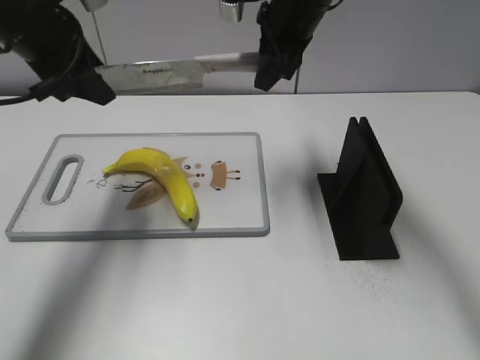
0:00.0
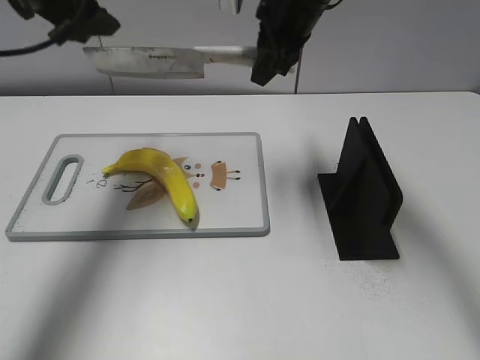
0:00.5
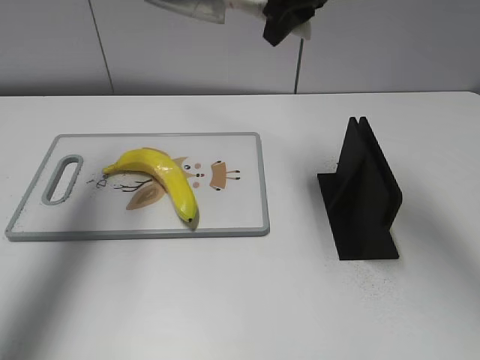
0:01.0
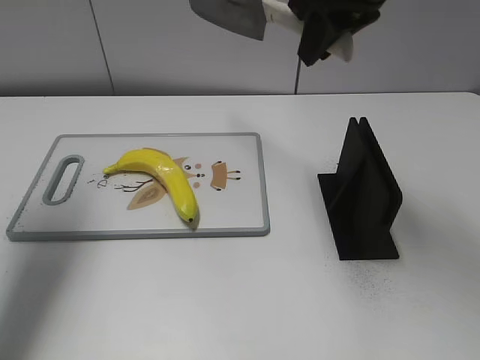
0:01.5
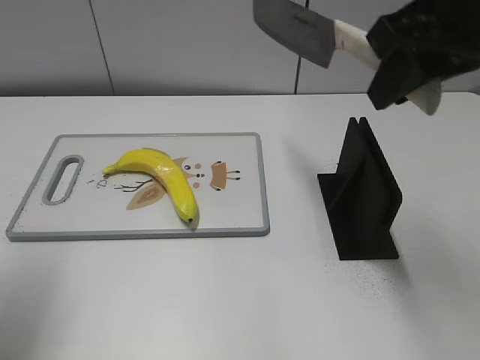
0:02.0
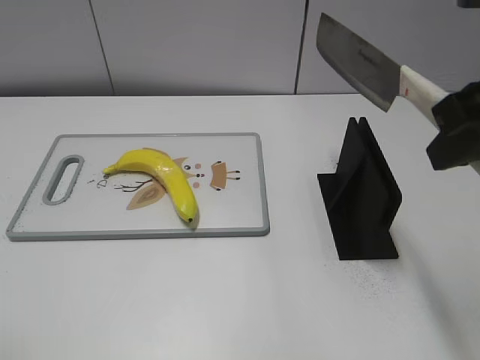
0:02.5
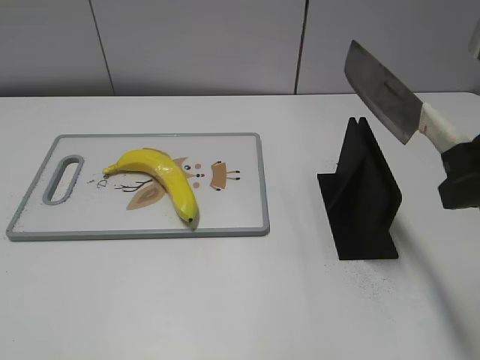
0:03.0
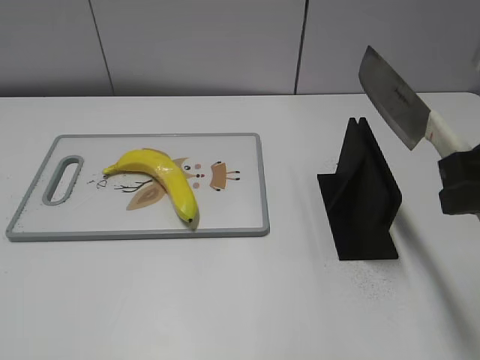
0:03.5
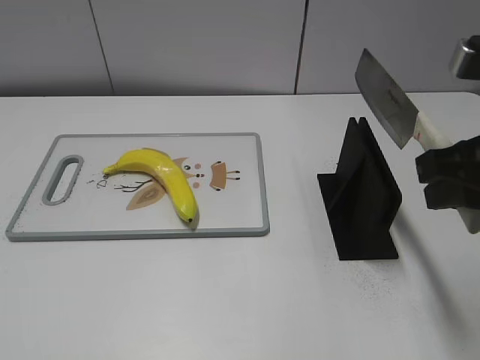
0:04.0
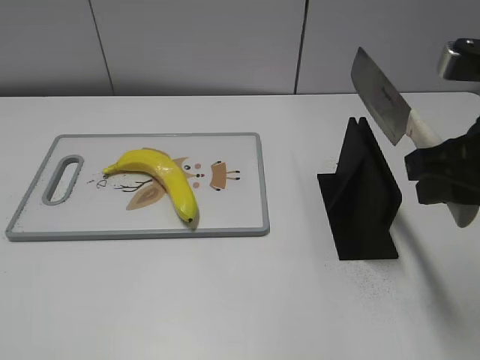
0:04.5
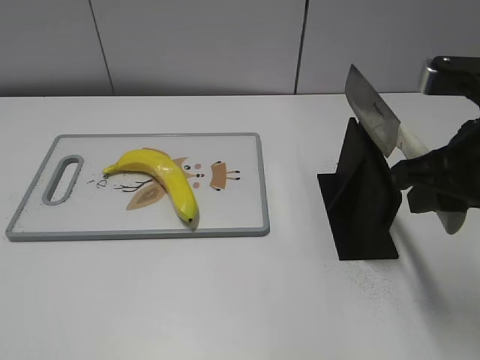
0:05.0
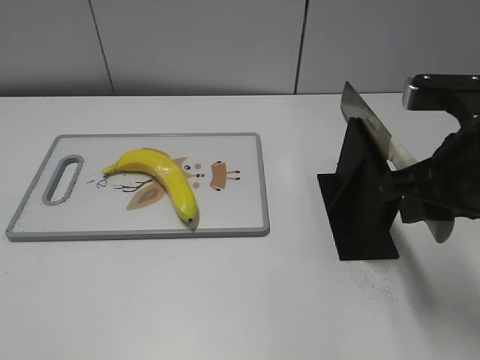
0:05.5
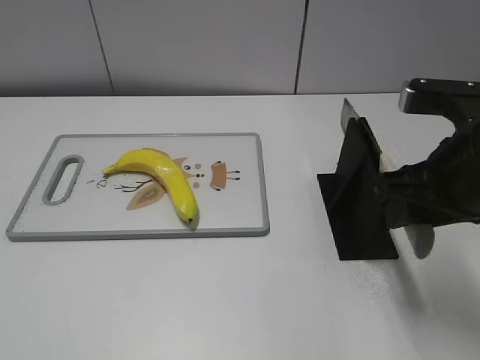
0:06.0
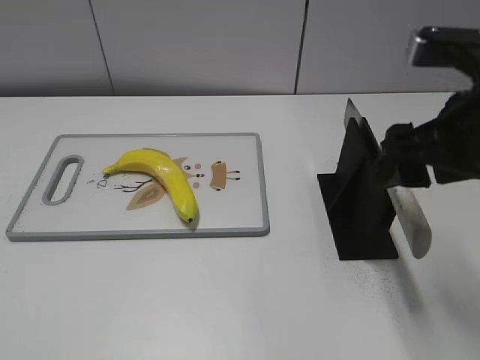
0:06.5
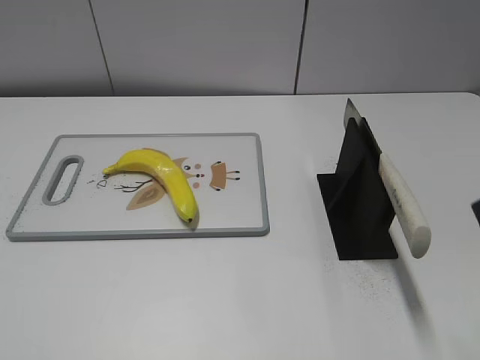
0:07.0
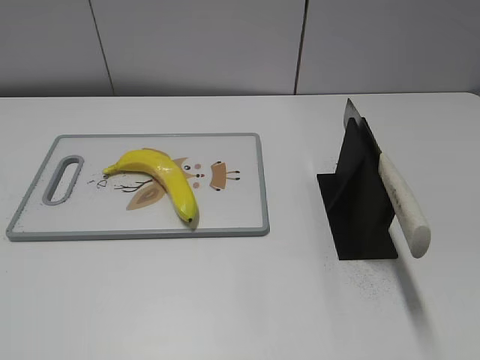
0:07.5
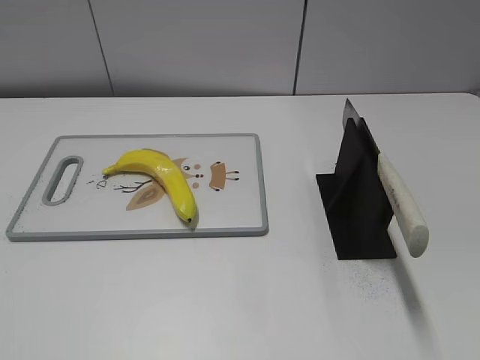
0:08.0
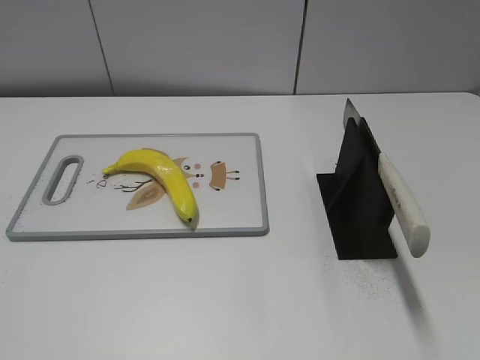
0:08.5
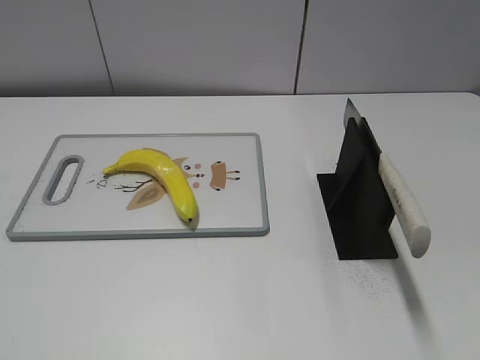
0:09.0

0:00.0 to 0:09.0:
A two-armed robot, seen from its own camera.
Task of the whole recording: cut plastic banana.
Step, 0:00.0 to 0:01.5: Cut the banana with your right hand.
Step, 0:02.0 to 0:02.5: Lift the knife with your right hand.
Step, 0:03.0 to 0:09.0: Place the knife on the storage rack with your right hand.
0:00.0 to 0:02.0: The right gripper heads backward, to the right and upward, covering about 20 cm. The left gripper moves backward and to the left, roughly 15 cm.
0:02.0 to 0:04.5: The left gripper heads backward, covering some 25 cm. The right gripper shifts some 10 cm downward and backward.
0:04.5 to 0:07.0: The right gripper travels backward and upward by approximately 10 cm, and opens its fingers.
